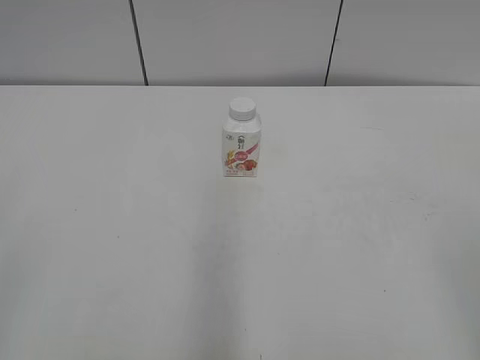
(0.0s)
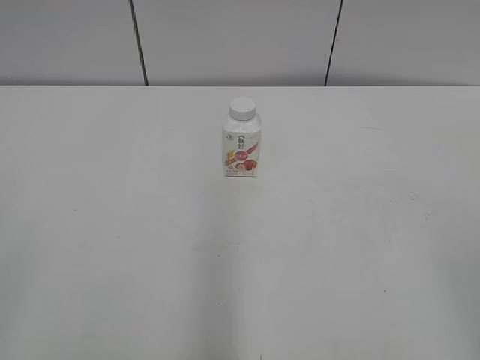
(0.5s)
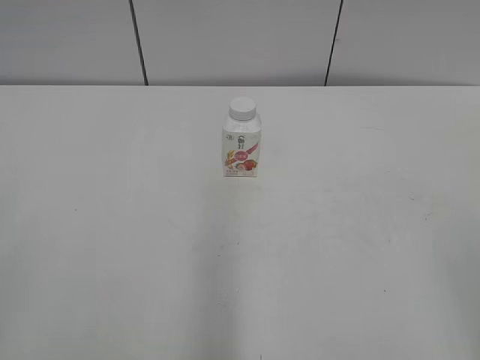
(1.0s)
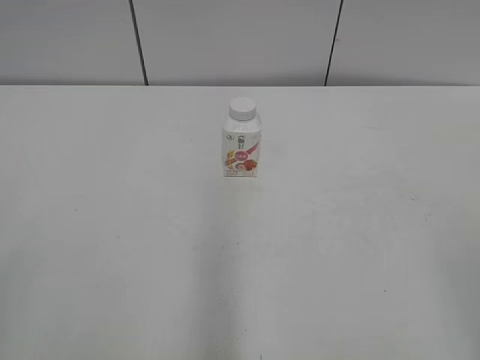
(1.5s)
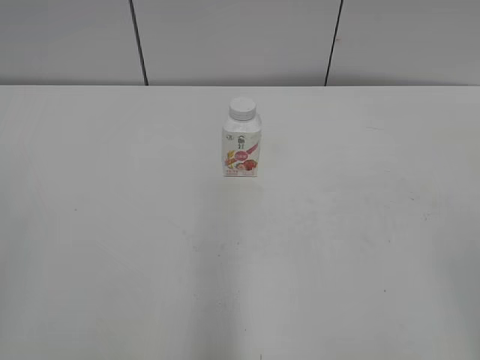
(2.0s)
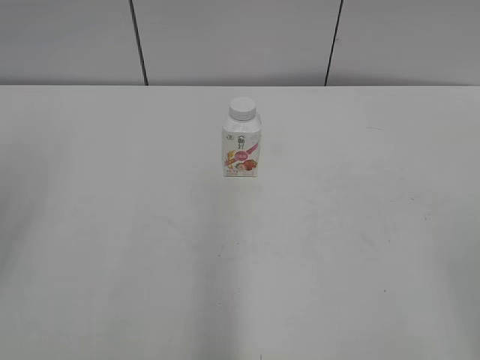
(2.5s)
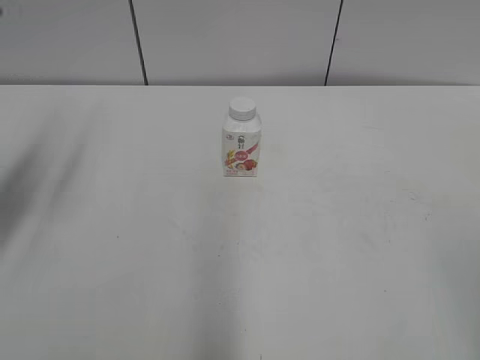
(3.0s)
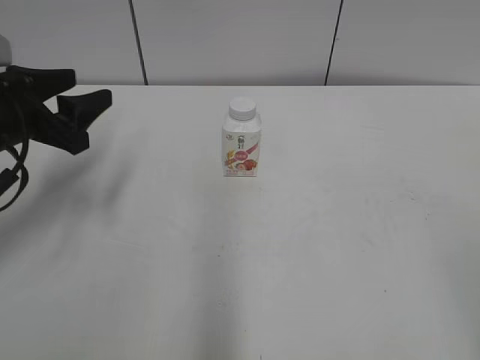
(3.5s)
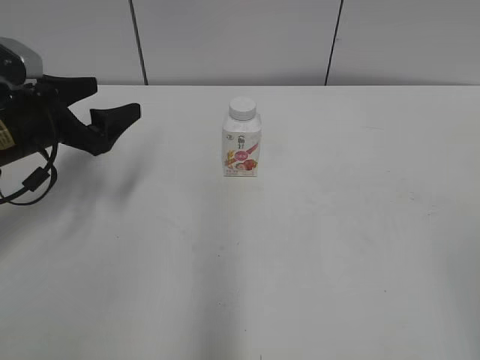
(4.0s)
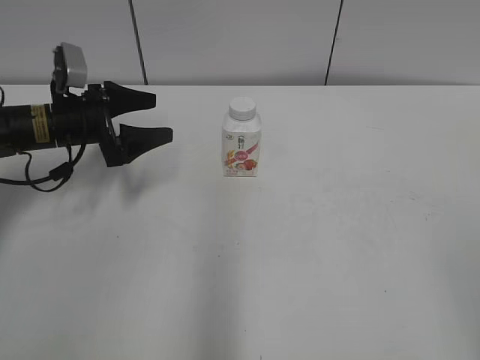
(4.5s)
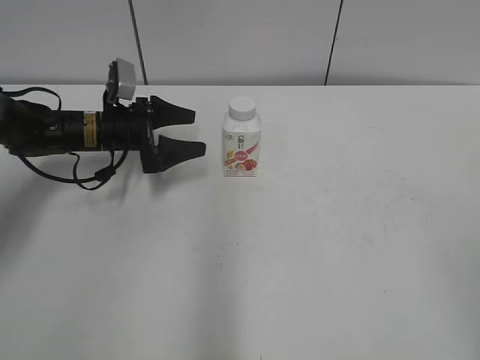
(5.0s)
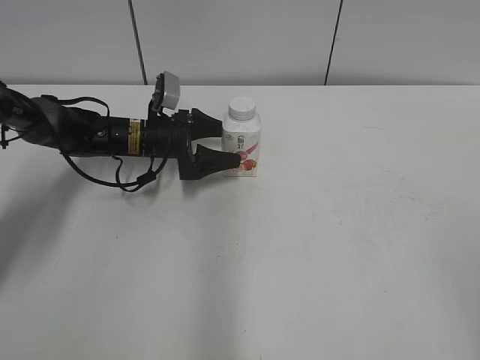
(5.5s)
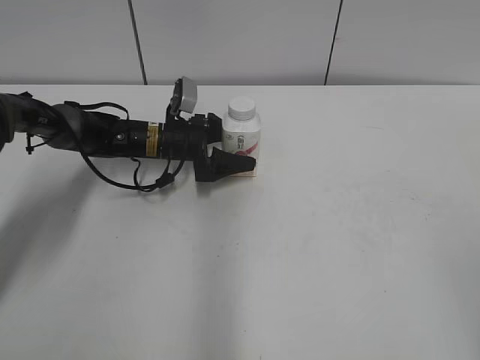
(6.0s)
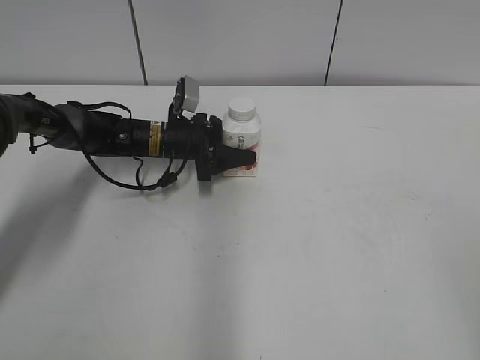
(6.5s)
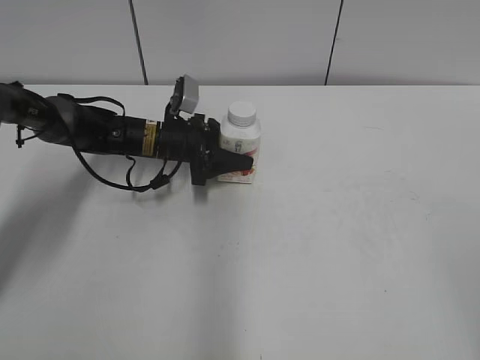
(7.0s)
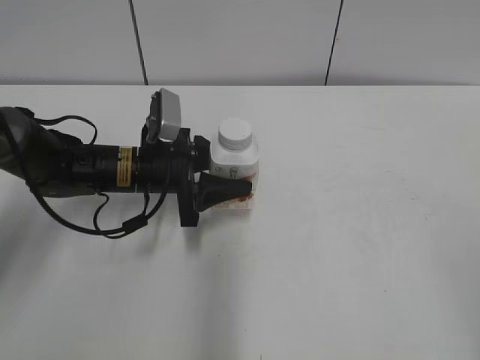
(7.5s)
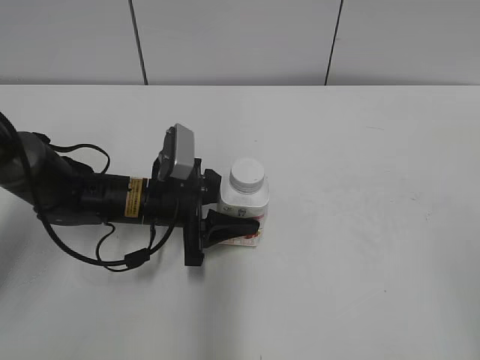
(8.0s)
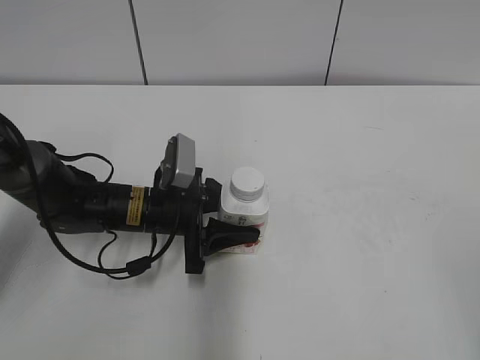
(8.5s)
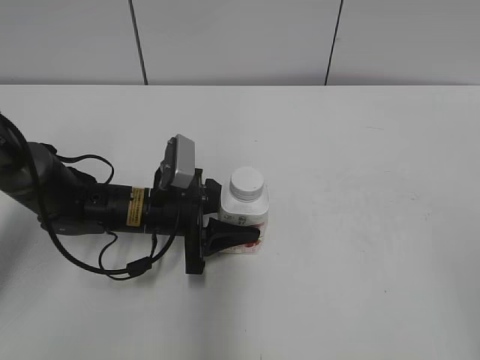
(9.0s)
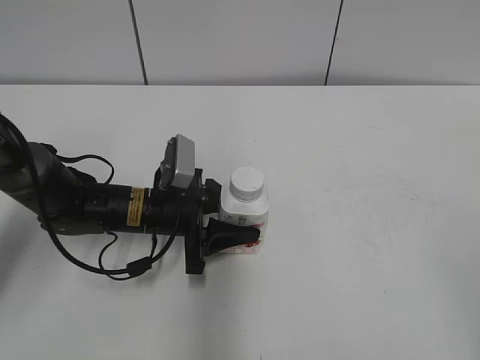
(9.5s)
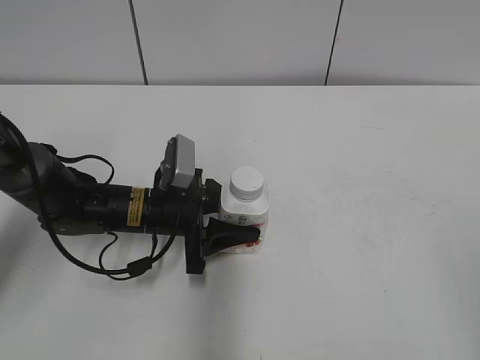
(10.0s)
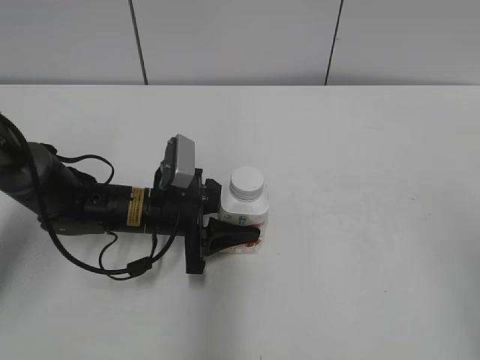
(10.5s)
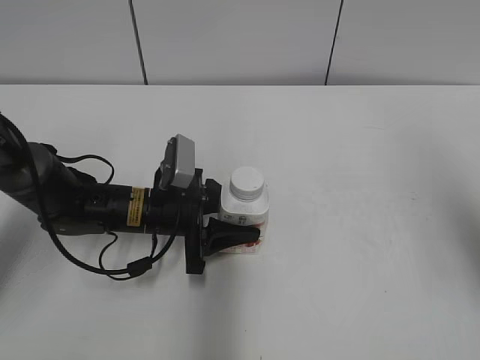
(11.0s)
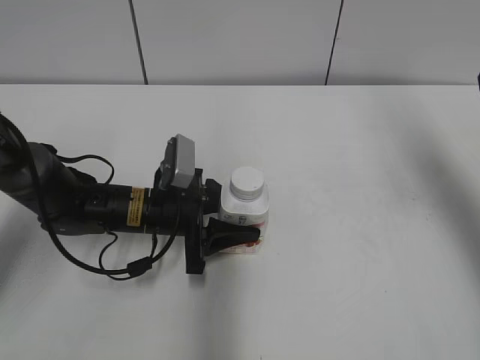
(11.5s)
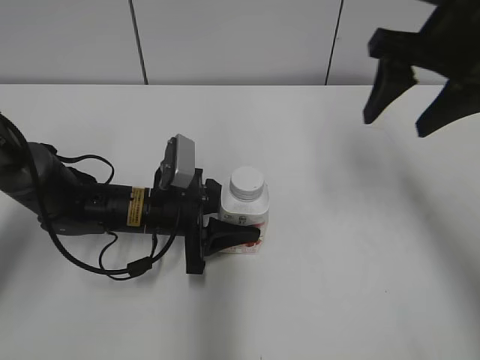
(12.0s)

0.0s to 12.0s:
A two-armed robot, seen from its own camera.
Step, 0.0s to 6.5s: Grasp the bottle and move it to the center of the table with the left gripper.
Step, 7.0s to 9.0s: Lift the bottle and move it to the center of the table with the left gripper.
2.0s to 4.0s: The left gripper heads forward and downward, covering about 35 cm, and opens up.
4.0s to 6.0s: The left gripper heads to the right, forward and downward, covering approximately 20 cm.
6.0s to 8.0s: The left gripper is displaced backward by approximately 15 cm, and closes its fingers.
8.0s to 10.0s: The grippers move only a little.
10.0s to 12.0s: The right gripper travels forward by approximately 35 cm.

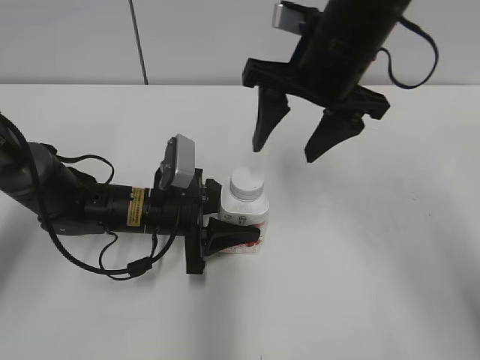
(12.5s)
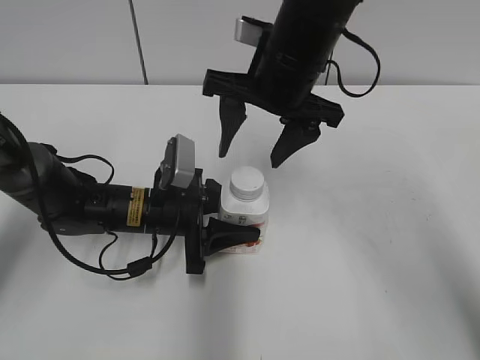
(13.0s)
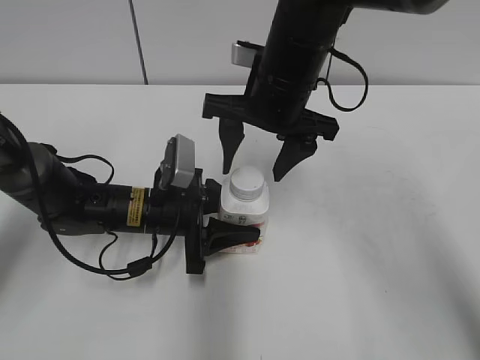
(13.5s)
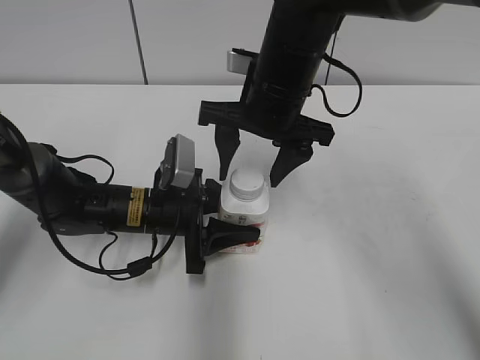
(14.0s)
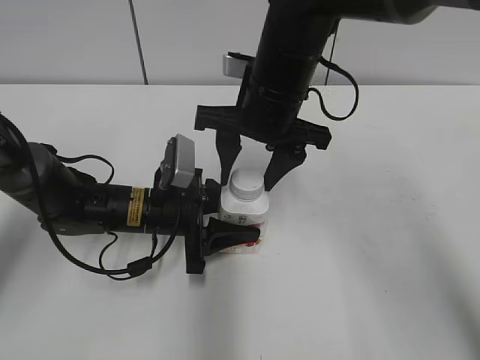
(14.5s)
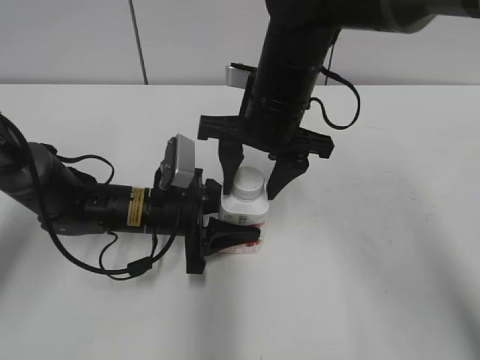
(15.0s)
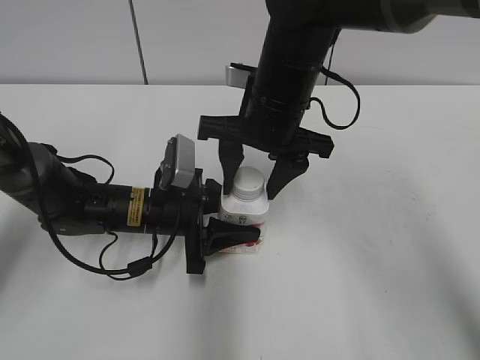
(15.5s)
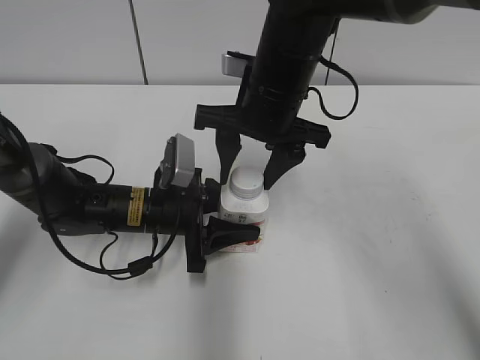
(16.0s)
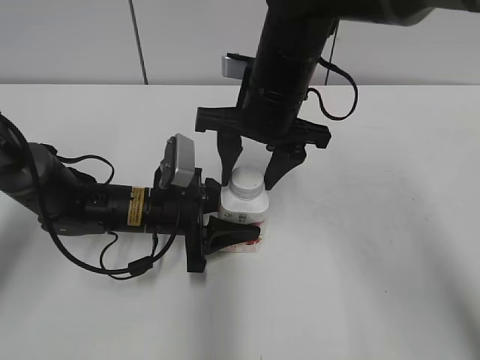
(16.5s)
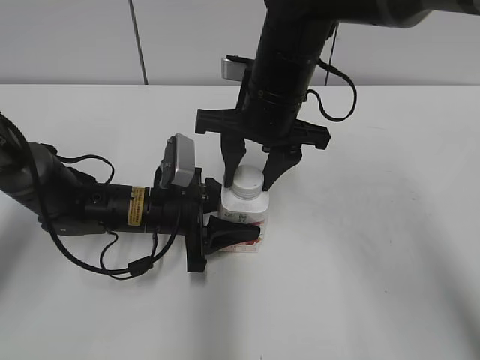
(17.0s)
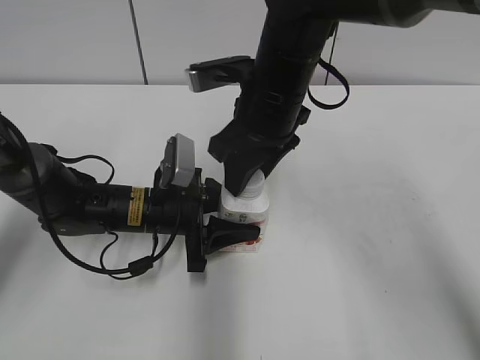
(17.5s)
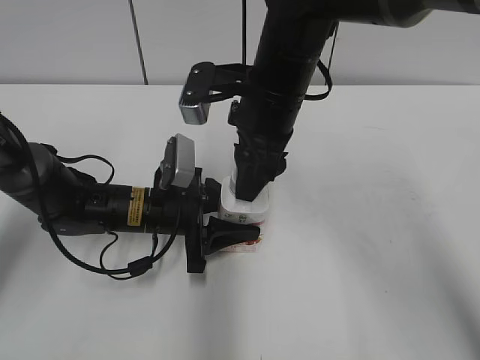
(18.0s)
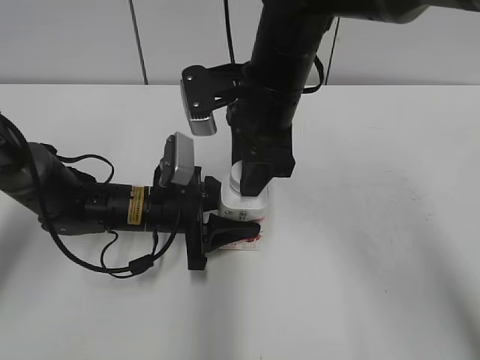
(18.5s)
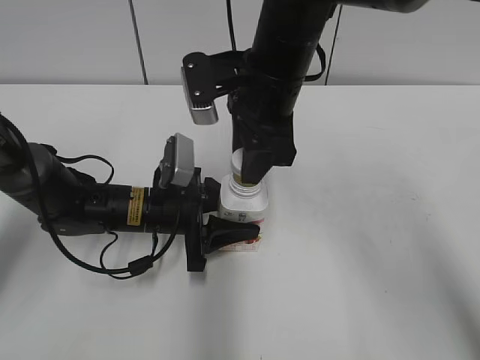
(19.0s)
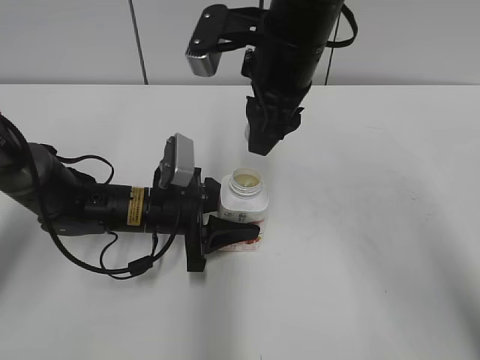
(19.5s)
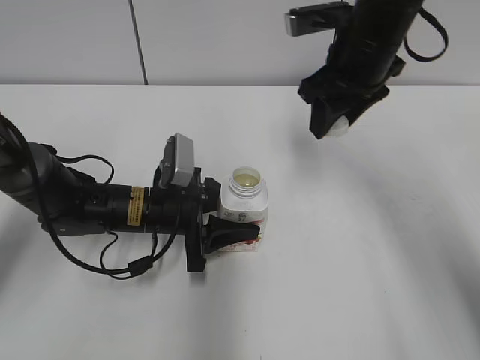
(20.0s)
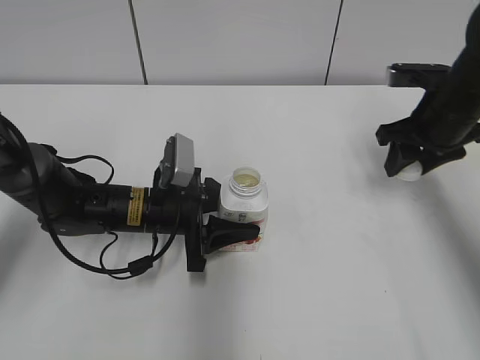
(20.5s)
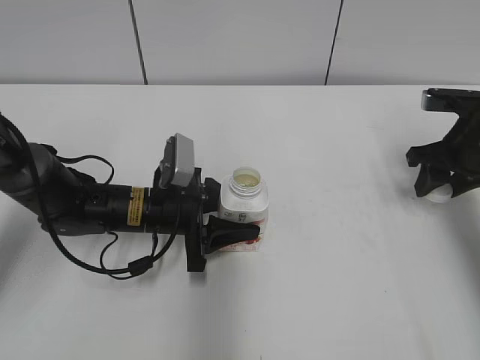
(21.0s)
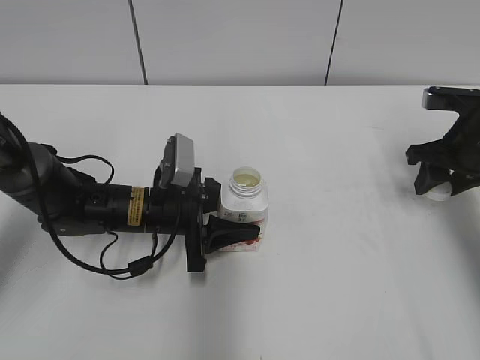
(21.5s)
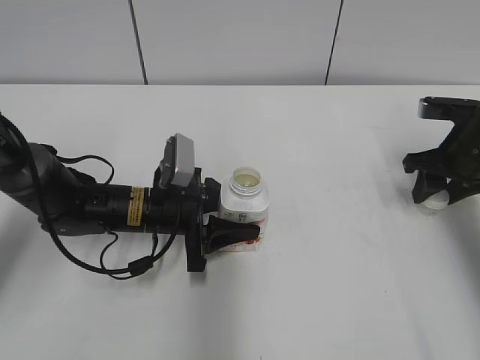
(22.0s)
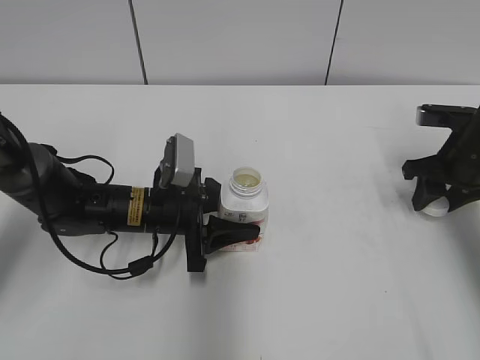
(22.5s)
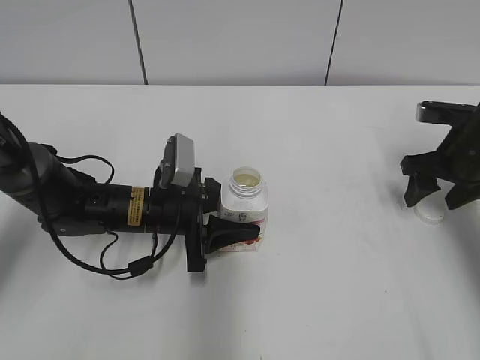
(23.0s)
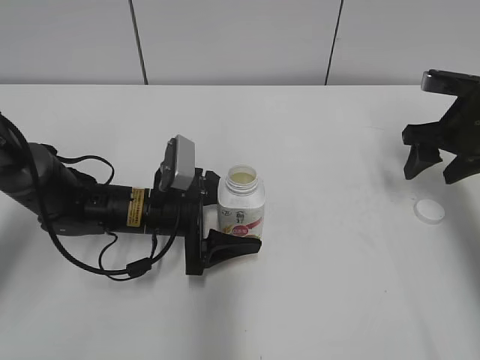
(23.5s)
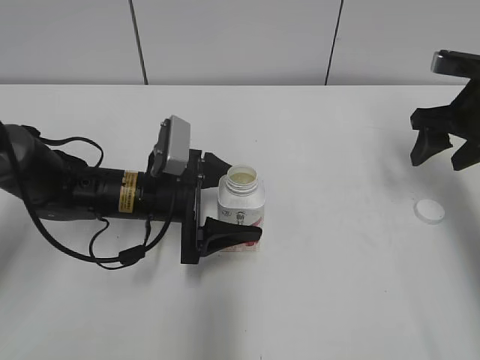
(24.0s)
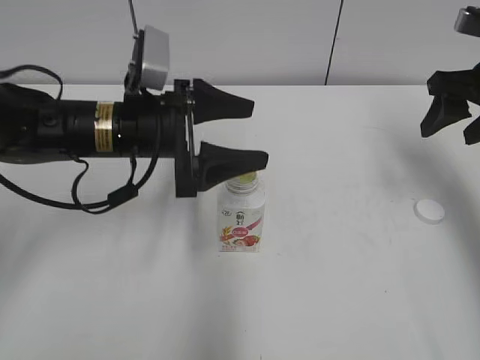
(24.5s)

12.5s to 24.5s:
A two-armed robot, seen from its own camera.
Step, 12.5s to 19.0s: Unscrew the bottle cap with the right gripper while holding the bottle with the left gripper.
Step, 19.5s to 22.5s: Place the bottle cap on the table with the right gripper.
Step, 23.0s to 24.0s: Place the bottle on the table with the left gripper.
12.5s to 14.5s: The right gripper goes about 10 cm to the left and downward, and closes its fingers.
14.5s to 16.5s: Both grippers stay about where they are.
16.5s to 18.5s: The right gripper closes.
18.5s to 20.5s: The right gripper heads to the right, covering some 20 cm.
20.5s to 22.5s: The right gripper shifts approximately 5 cm to the right and downward.
22.5s to 24.5s: Both grippers move upward, approximately 10 cm. The left gripper opens its fingers. The right gripper opens up.

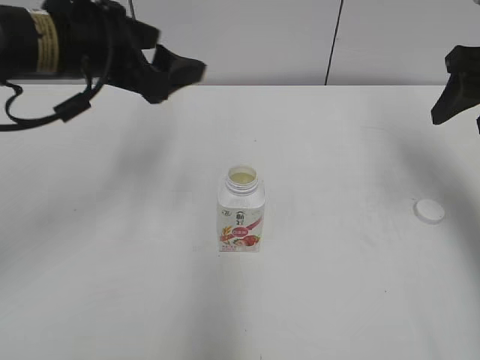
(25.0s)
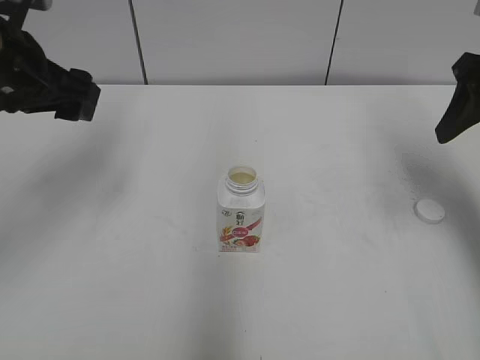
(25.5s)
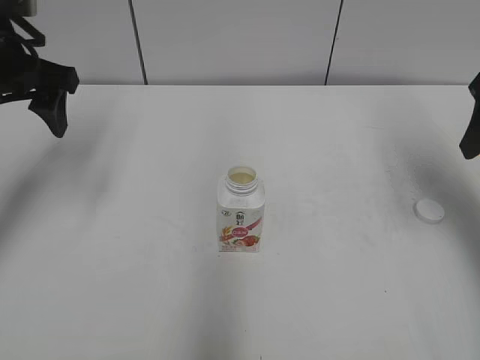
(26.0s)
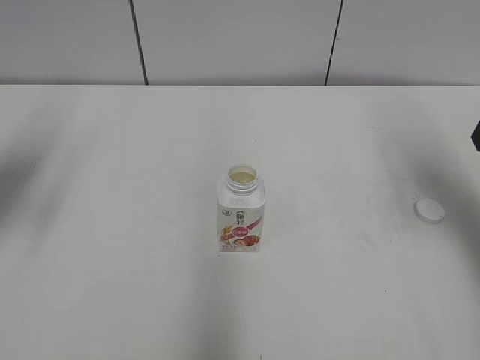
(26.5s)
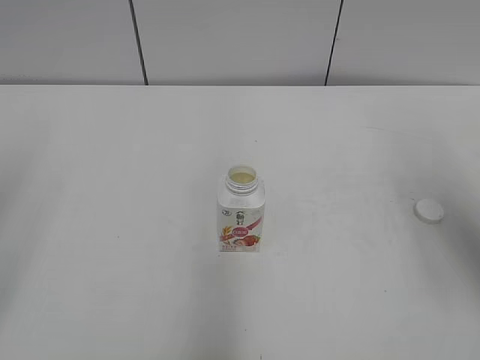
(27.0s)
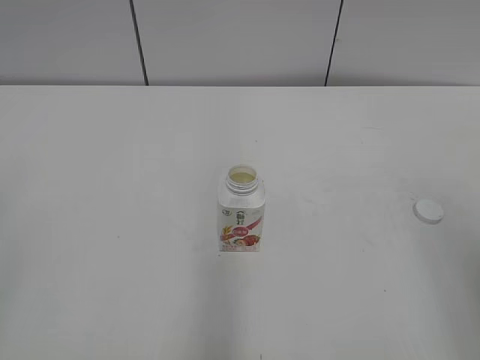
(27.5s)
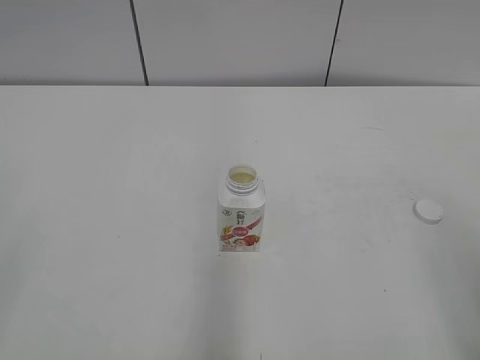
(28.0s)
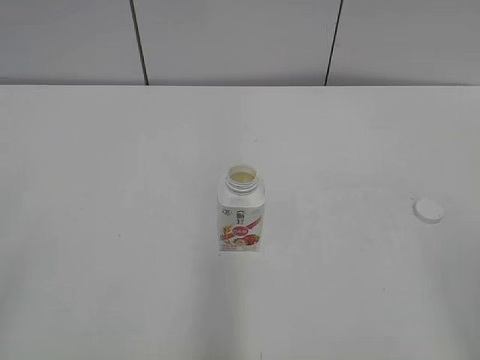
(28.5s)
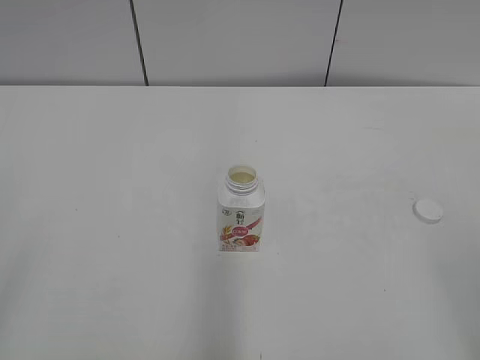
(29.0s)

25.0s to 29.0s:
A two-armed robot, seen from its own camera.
25.0s to 27.0s: The right gripper travels backward by roughly 10 cm; the left gripper is displaced to the left and backward by roughly 25 cm.
27.0s to 29.0s: The right gripper is displaced backward by approximately 20 cm.
